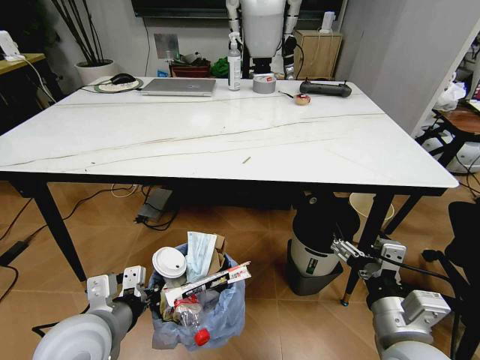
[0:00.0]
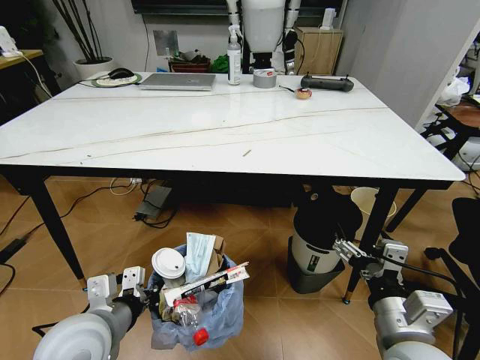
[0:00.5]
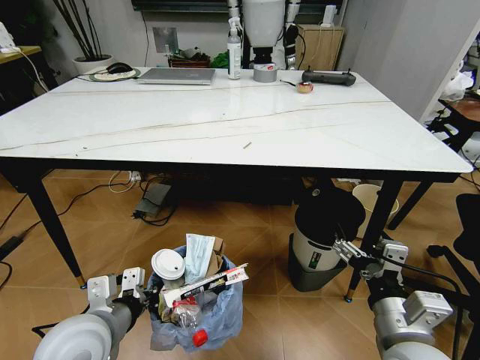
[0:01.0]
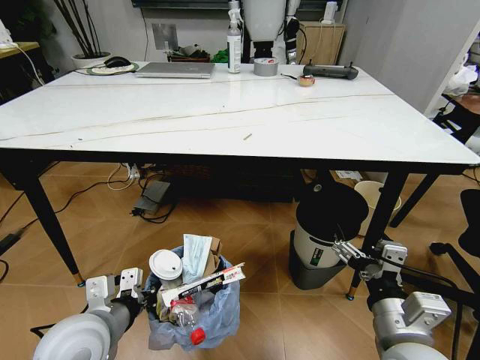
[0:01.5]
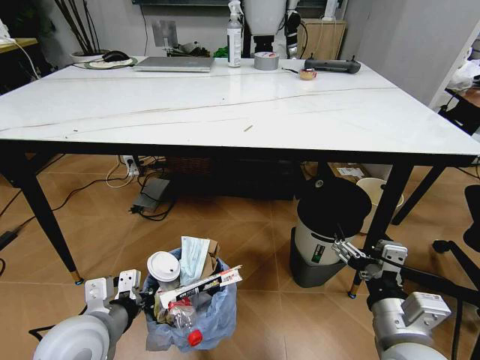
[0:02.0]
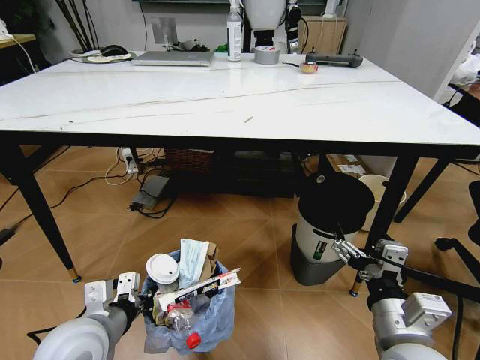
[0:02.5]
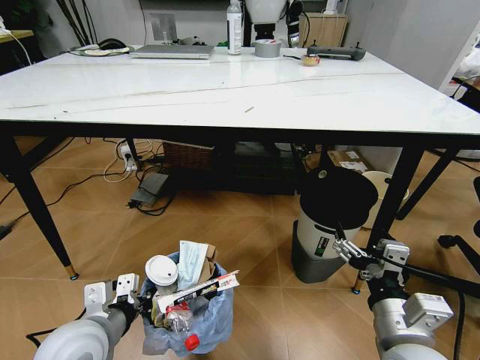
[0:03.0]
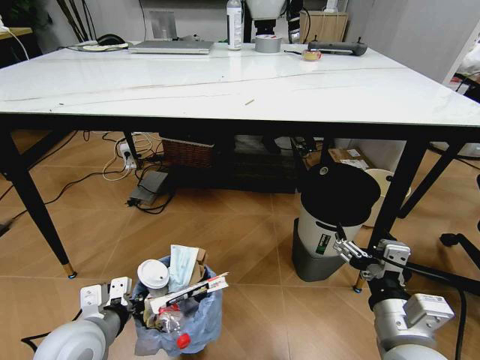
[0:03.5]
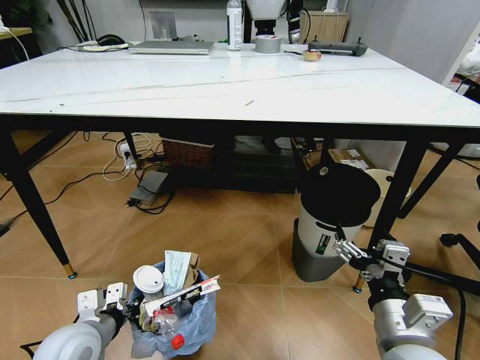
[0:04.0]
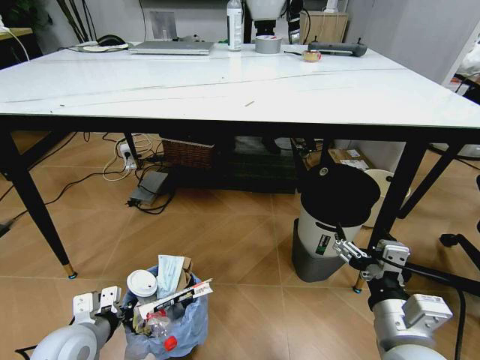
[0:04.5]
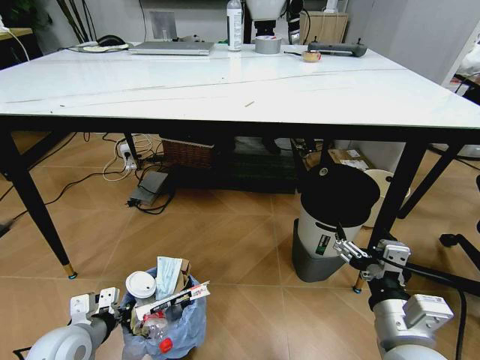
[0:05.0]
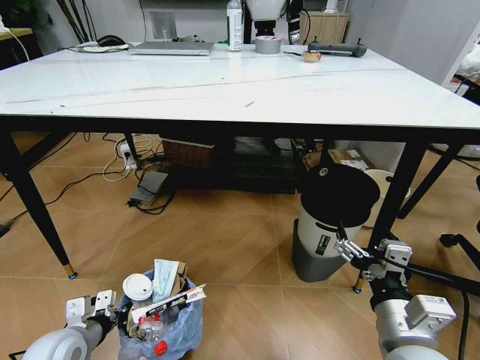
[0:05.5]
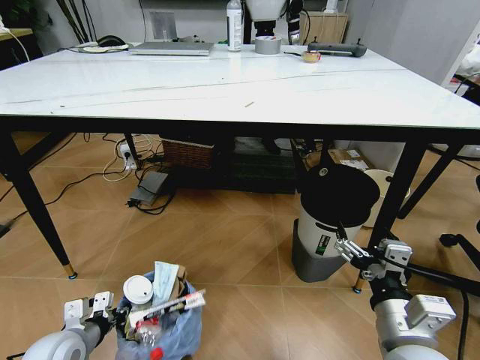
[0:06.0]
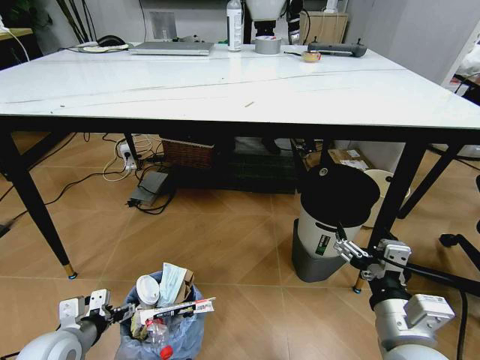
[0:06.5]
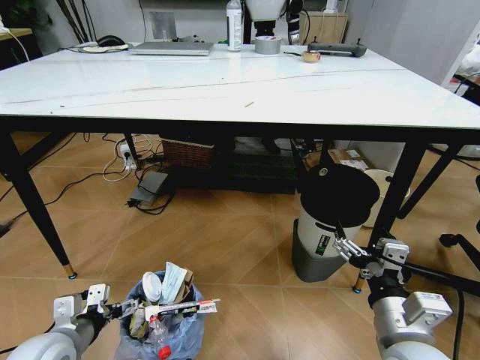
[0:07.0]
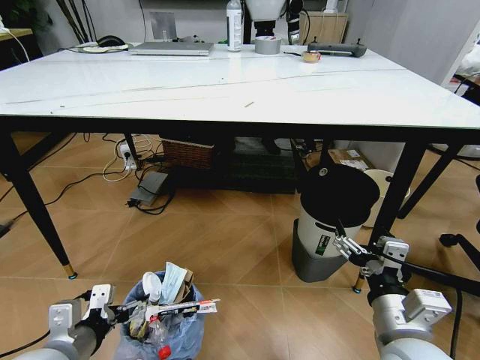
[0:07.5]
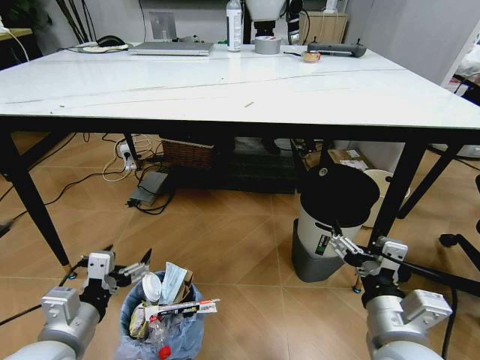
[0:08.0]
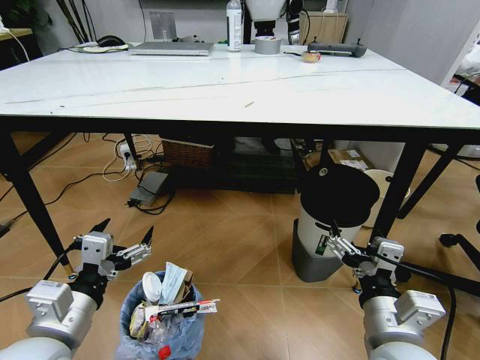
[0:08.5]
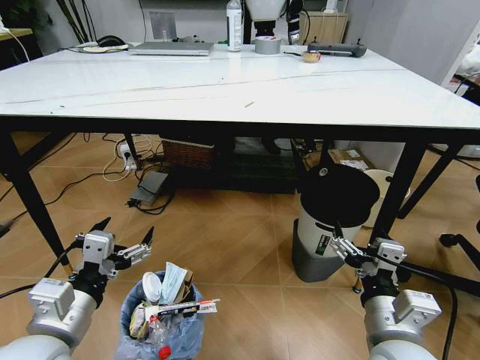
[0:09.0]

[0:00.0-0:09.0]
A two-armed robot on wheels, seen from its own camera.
Task of the whole recording: Pick up the trash bin and place the trash from the table into it.
0:02.0 to 0:04.5: The left gripper moves downward and to the left, some 10 cm.
0:04.5 to 0:07.0: The left gripper opens its fingers.
0:07.0 to 0:09.0: The left gripper heads upward and to the right, covering some 15 cm.
